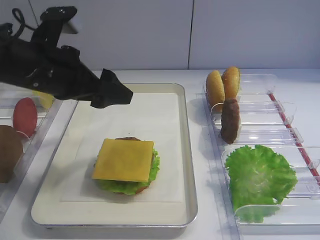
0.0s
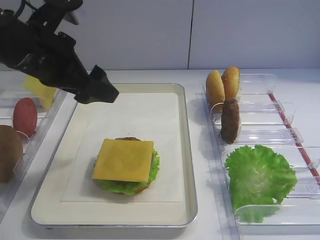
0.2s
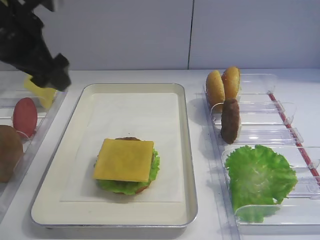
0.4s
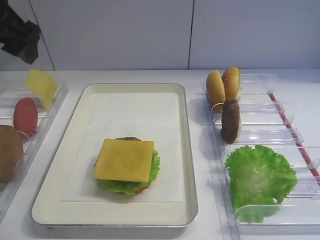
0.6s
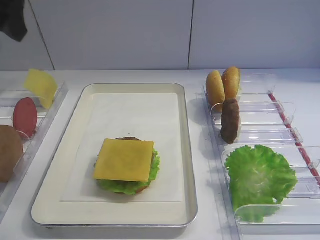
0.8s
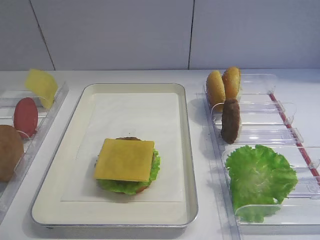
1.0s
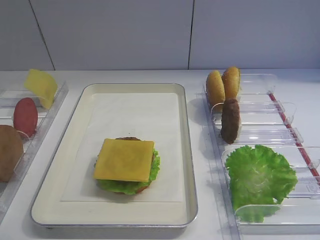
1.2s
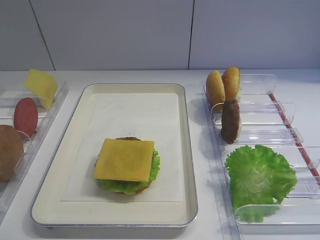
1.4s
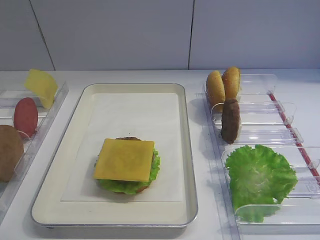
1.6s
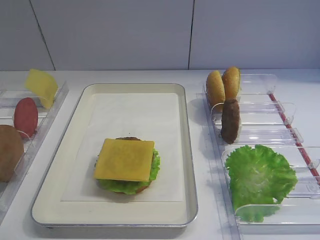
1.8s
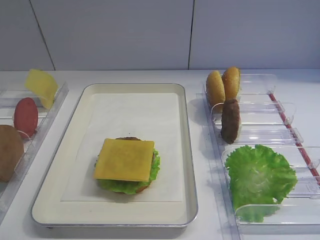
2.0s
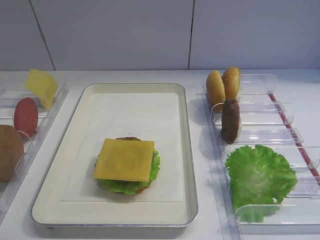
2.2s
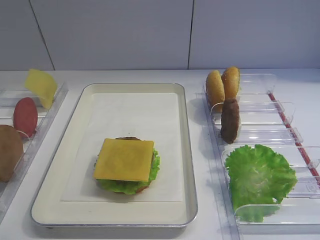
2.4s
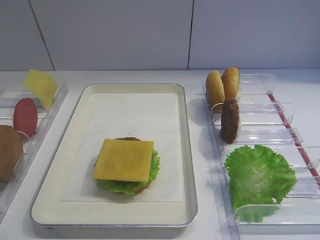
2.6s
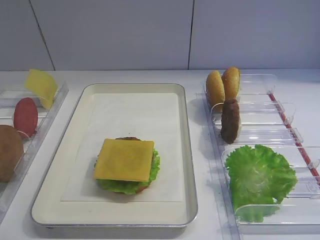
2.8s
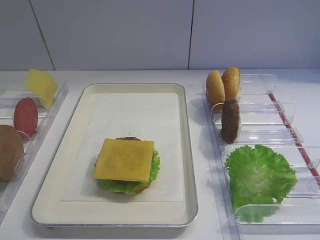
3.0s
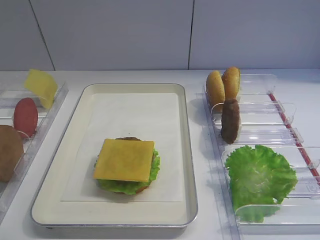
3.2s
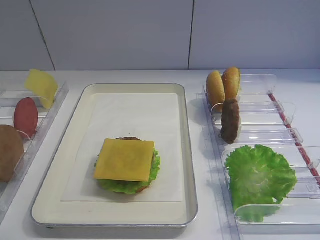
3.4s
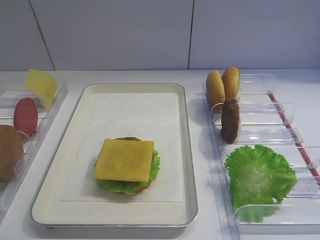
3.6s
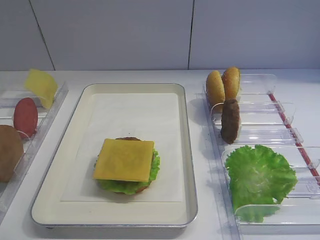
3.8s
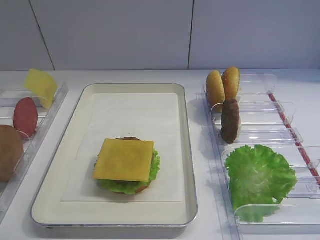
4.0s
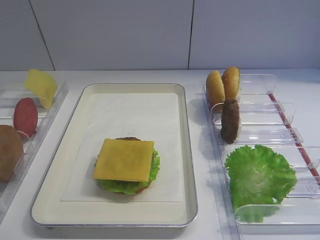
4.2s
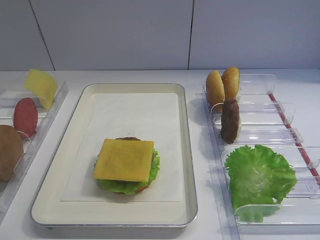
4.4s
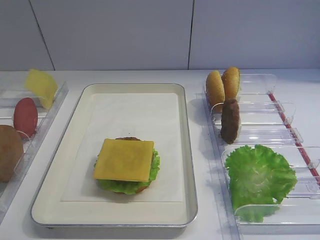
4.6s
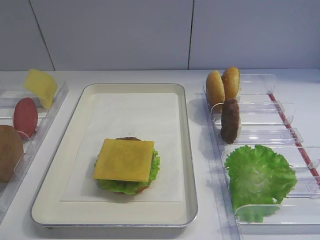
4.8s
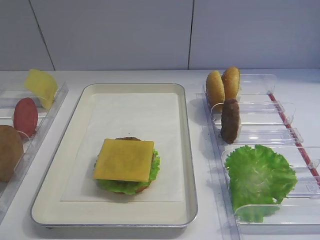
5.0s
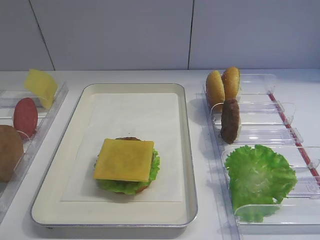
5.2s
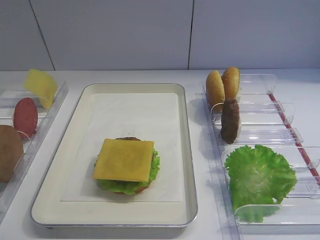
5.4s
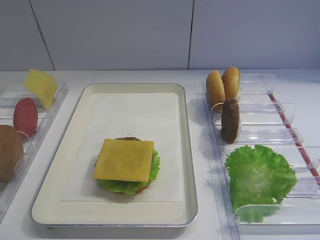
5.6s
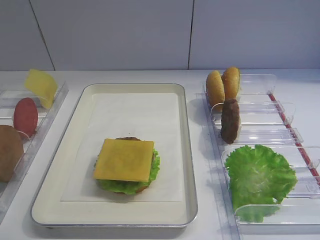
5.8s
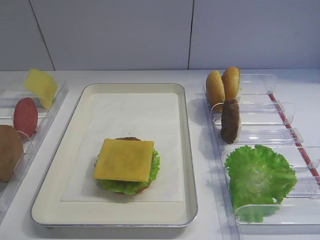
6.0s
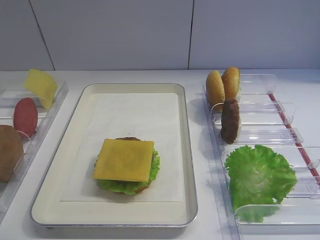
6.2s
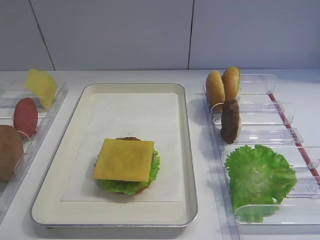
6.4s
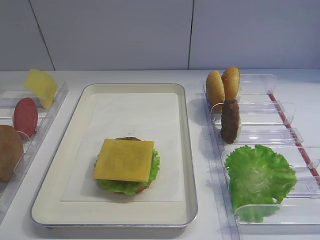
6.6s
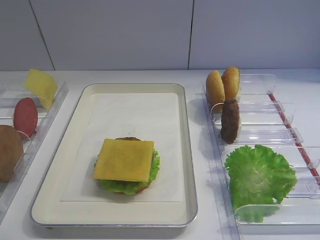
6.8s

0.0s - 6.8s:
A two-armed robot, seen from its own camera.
0.0s - 1.4s: The left gripper shifts approximately 30 cm upward, backward and to the left.
4.0s - 6.8s: Both grippers stay about where they are.

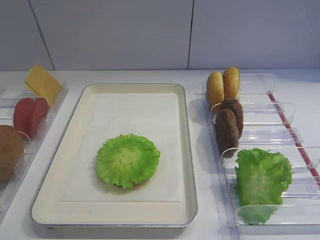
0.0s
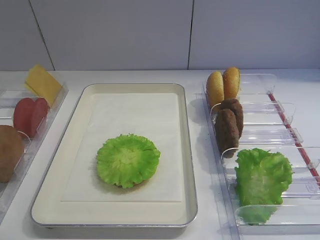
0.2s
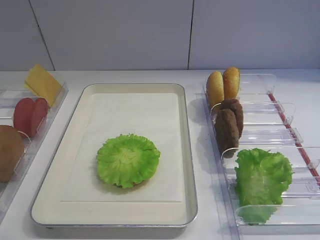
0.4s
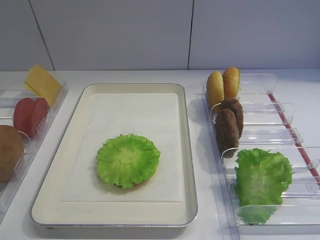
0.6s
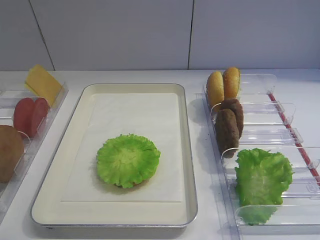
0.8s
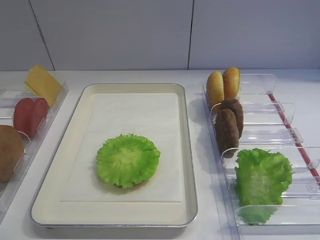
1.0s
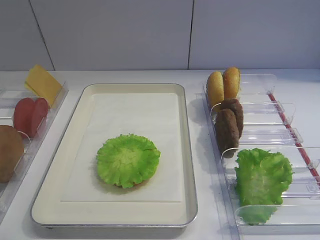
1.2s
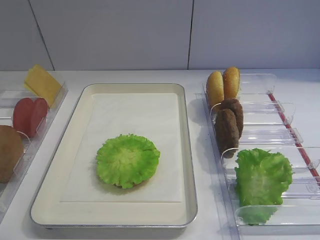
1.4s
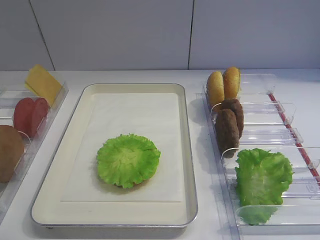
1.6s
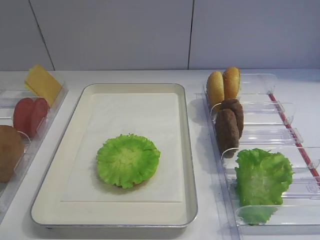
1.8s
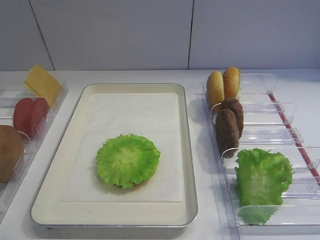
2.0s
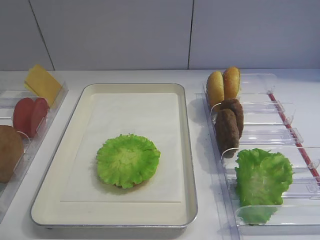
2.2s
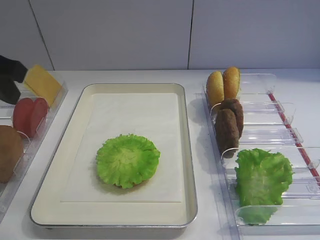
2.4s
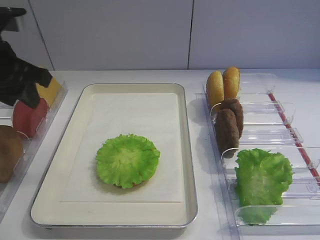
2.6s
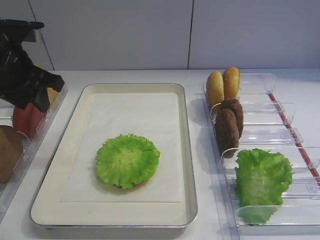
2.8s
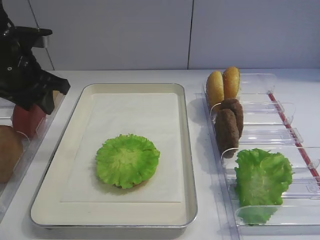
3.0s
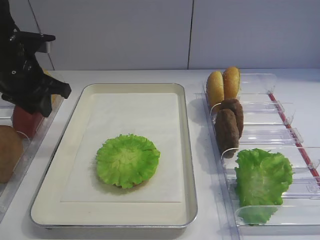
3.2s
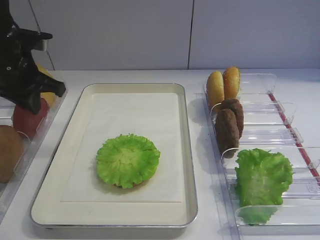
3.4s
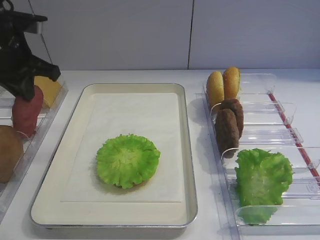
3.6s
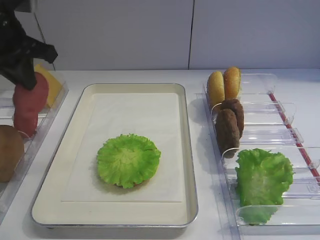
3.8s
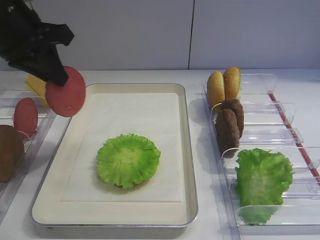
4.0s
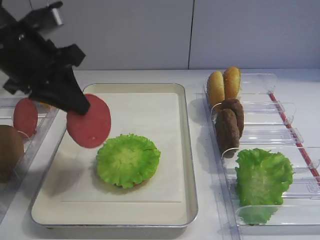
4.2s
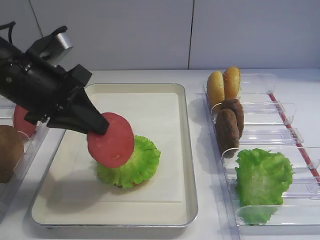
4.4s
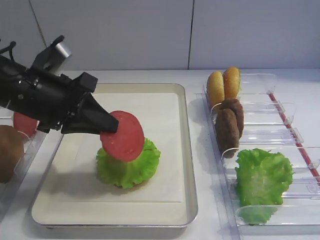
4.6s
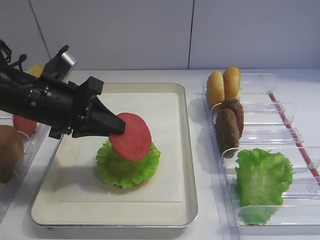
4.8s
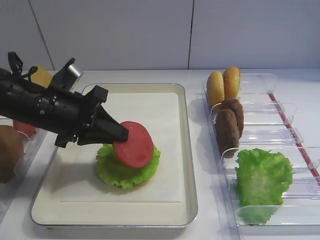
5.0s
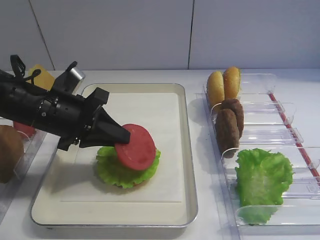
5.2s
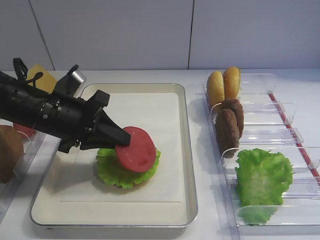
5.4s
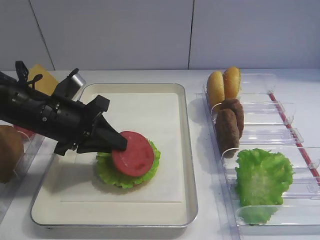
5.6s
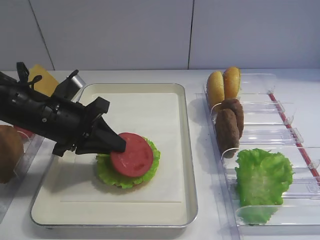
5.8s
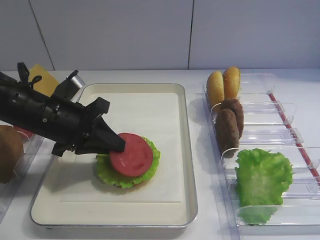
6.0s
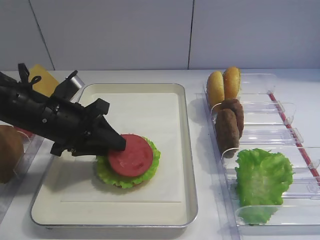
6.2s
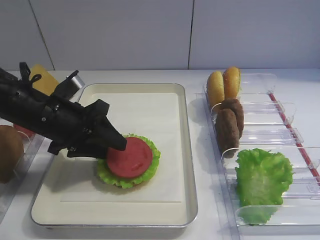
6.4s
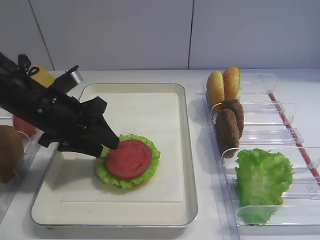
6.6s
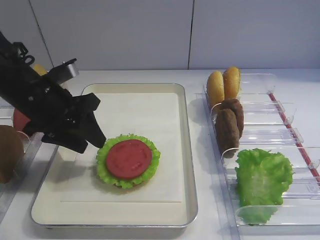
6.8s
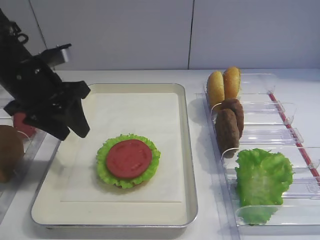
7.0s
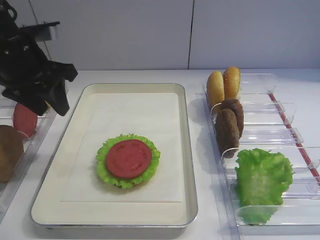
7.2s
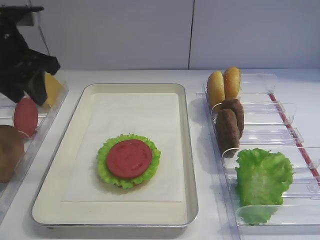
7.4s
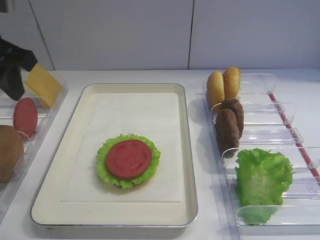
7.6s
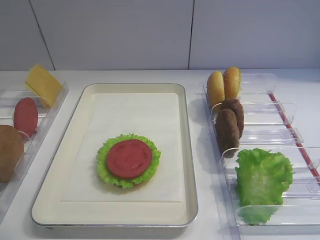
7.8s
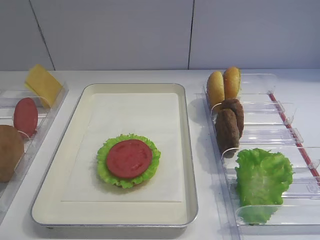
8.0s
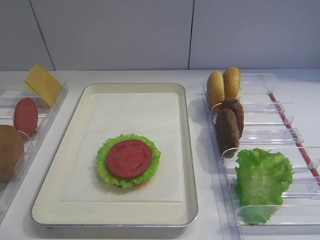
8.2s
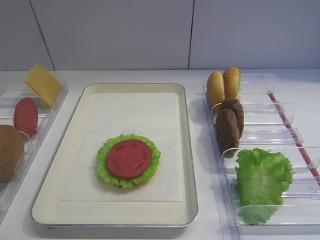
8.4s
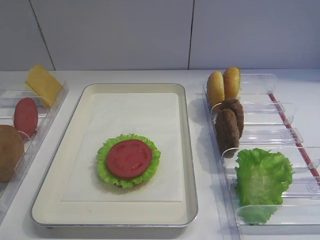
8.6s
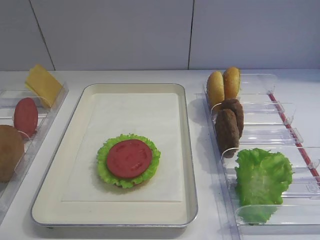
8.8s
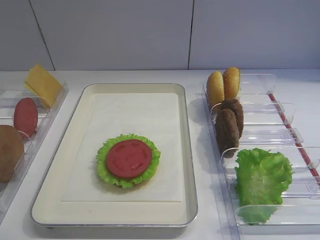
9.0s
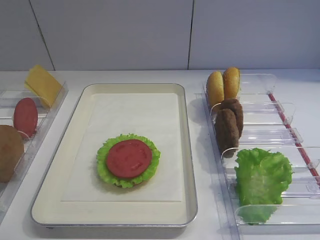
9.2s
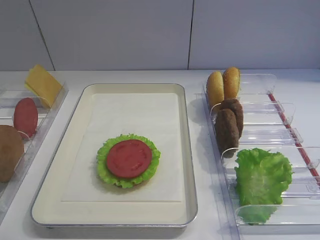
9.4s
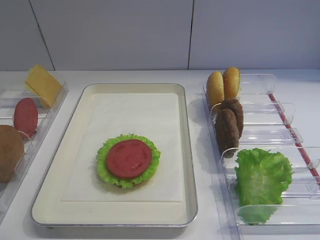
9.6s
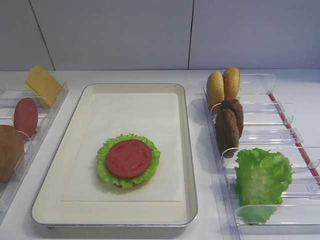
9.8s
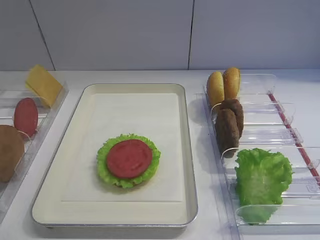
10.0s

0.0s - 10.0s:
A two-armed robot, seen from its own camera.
Step, 0.0s - 3.6s: Pick up the tomato slice with the left gripper.
Step, 3.8s - 6.8s: Place the tomato slice on the lettuce leaf with the left gripper.
1.4s - 2.8s: The left gripper heads forward, covering approximately 35 cm.
2.8s - 4.2s: The left gripper moves some 5 cm upward and comes back, and closes.
4.2s - 5.8s: The left gripper goes some 10 cm downward.
5.8s - 7.2s: The left gripper goes approximately 10 cm upward and to the left, and opens up.
7.2s - 8.6s: The left gripper shifts roughly 30 cm backward.

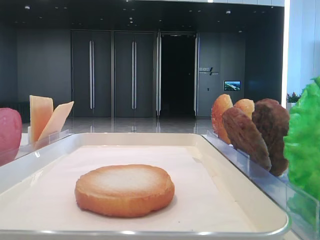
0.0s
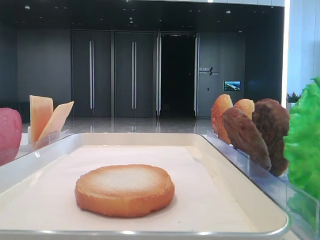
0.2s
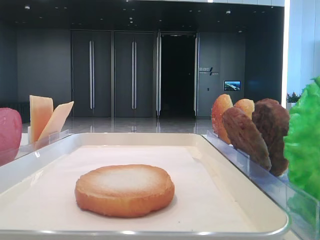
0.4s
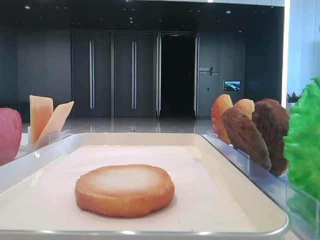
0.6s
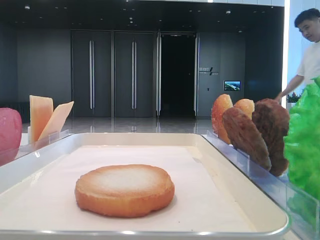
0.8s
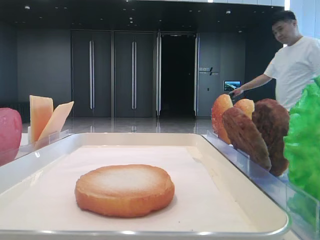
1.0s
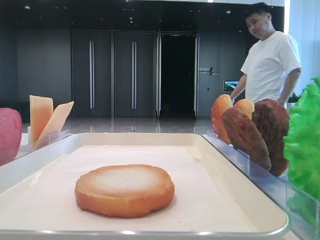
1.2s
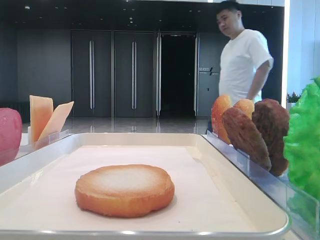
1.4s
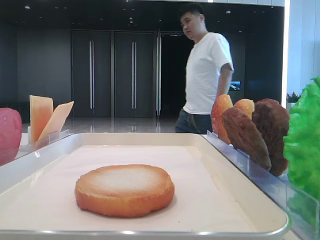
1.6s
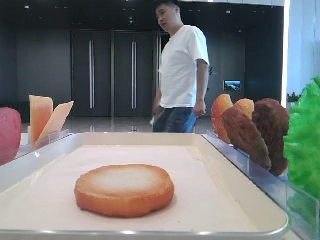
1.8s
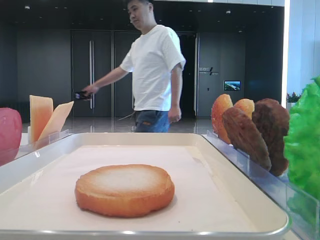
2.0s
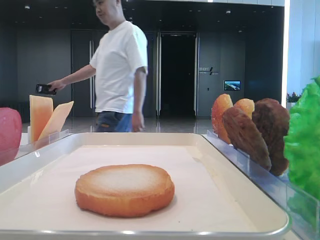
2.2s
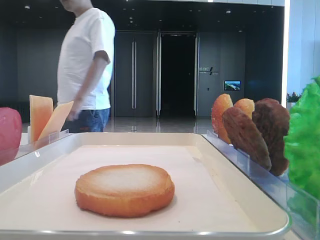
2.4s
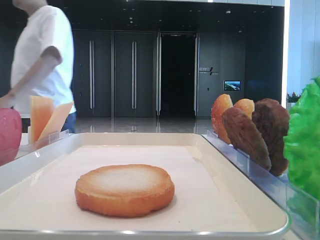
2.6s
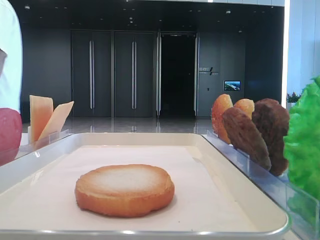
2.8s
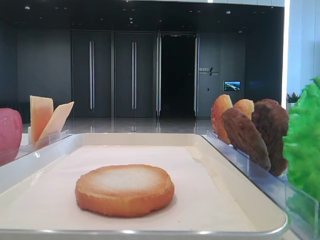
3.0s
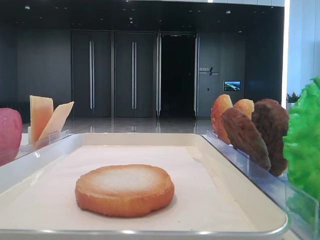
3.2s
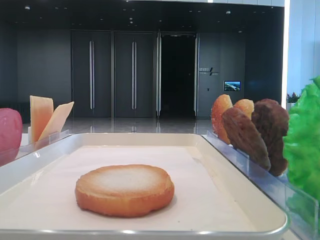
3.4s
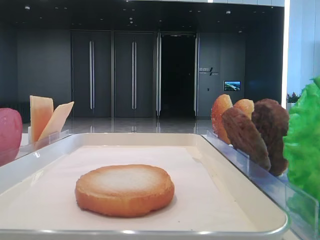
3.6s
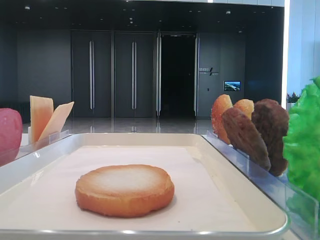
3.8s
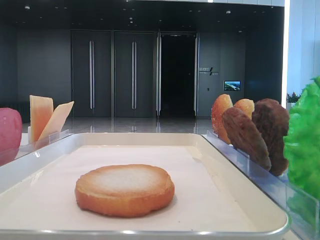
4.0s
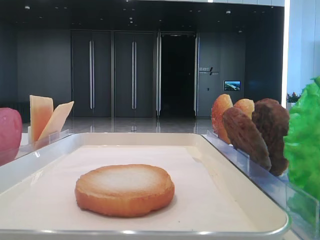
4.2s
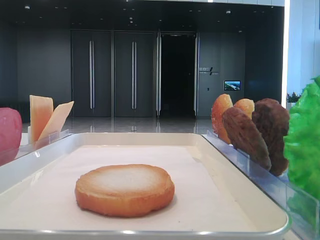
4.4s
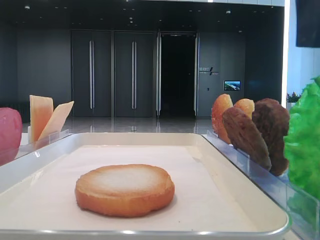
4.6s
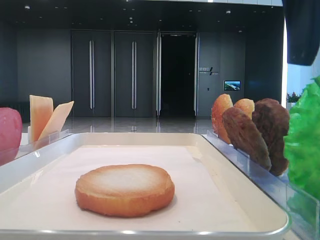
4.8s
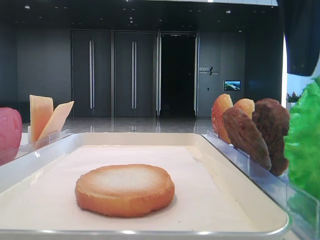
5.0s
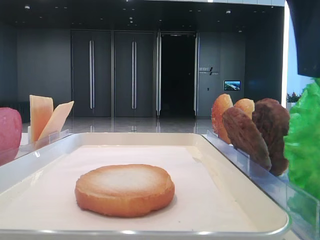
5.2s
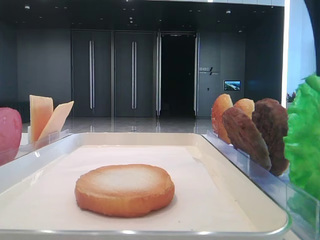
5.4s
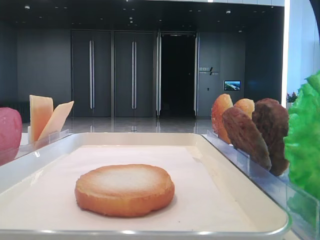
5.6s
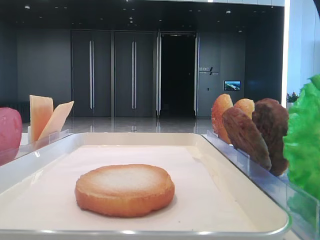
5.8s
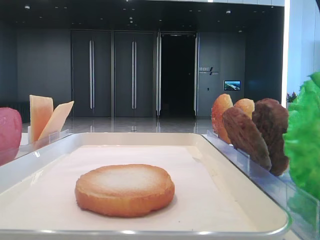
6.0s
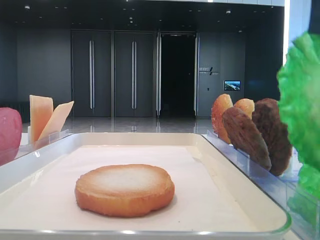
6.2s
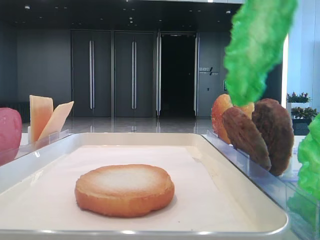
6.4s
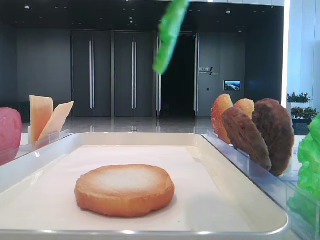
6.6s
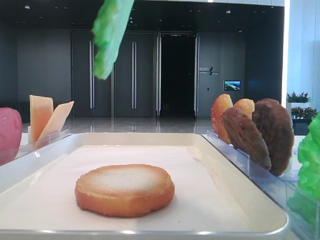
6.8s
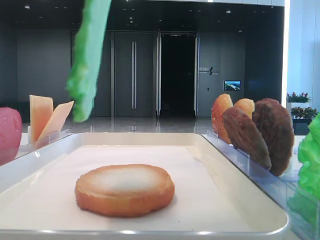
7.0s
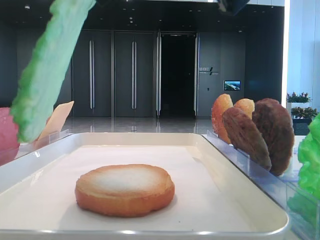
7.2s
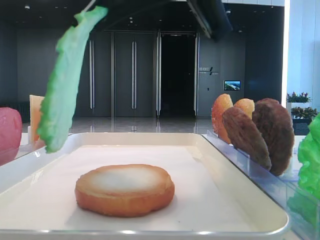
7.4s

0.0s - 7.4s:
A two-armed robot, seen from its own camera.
Step, 0.0s - 5.8s: Grab the lettuce leaf with the right hand.
1.4s - 3.0s: The right gripper heads forward and upward, covering roughly 15 cm.
4.4s - 6.0s: The right gripper closes its fingers.
6.0s - 7.4s: The right gripper moves to the left, approximately 10 cm.
